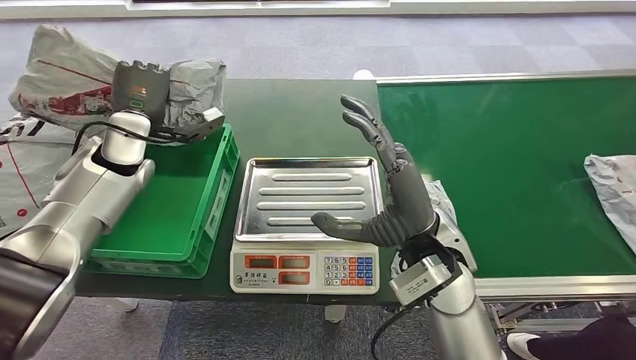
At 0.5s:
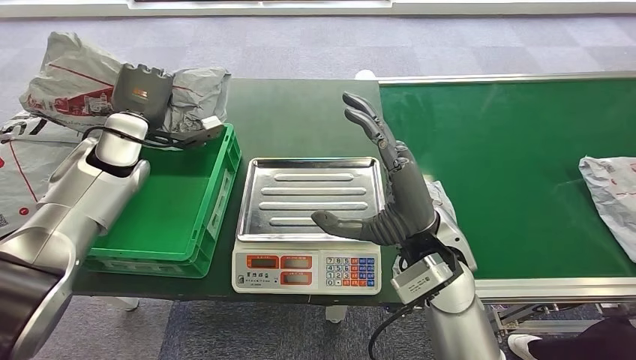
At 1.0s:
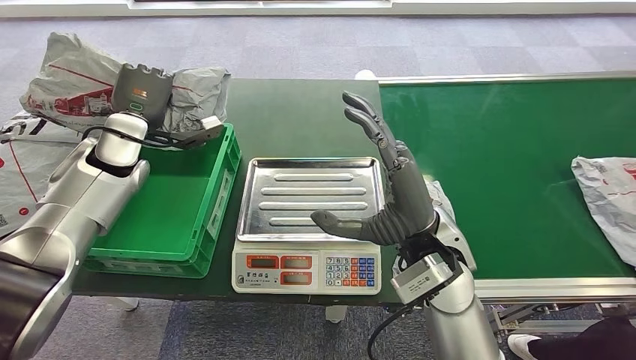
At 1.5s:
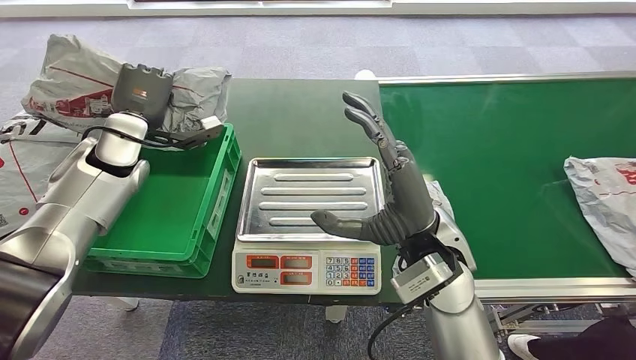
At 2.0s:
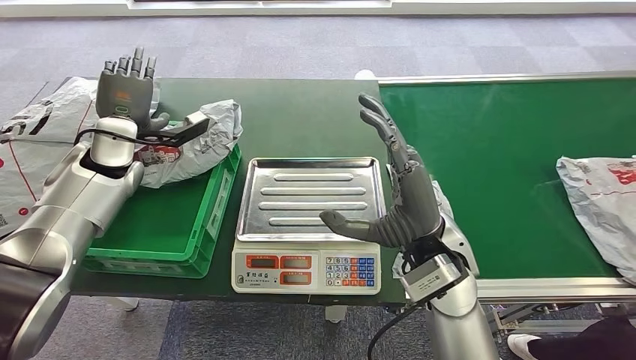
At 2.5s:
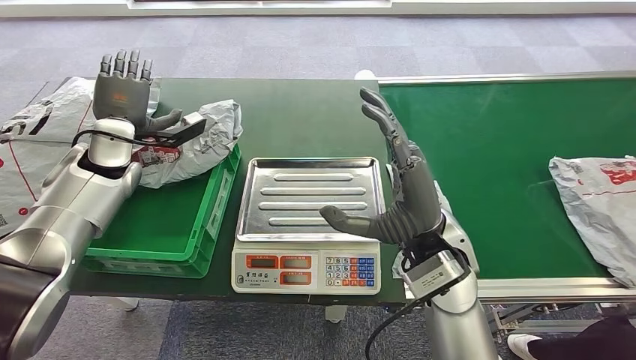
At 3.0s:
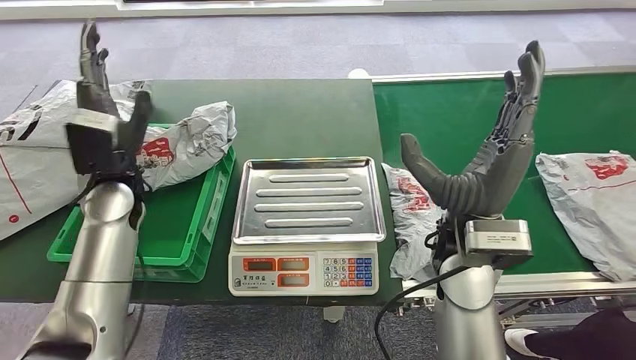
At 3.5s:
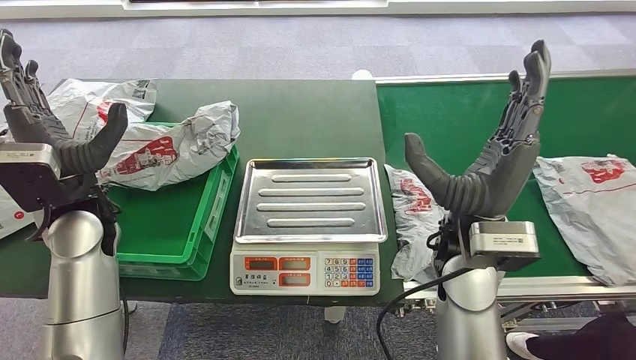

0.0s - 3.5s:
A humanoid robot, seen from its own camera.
Step, 0.5s - 3.5s: Place the package into the parcel locker.
